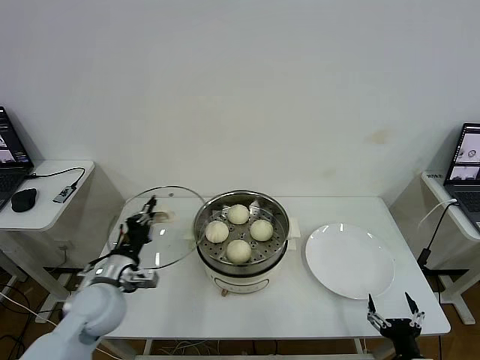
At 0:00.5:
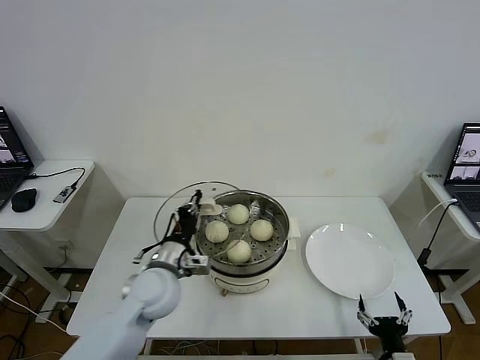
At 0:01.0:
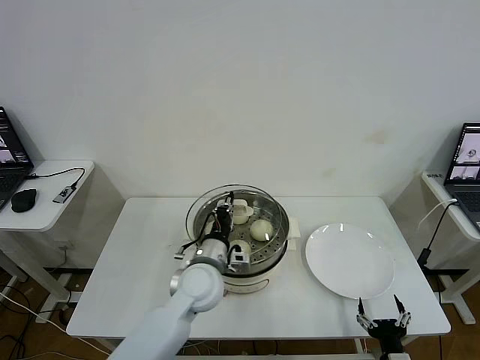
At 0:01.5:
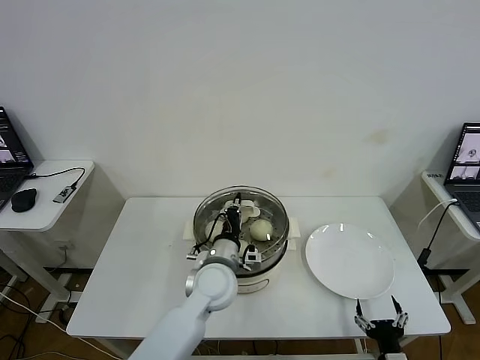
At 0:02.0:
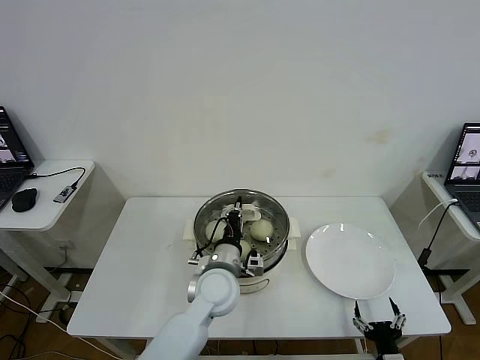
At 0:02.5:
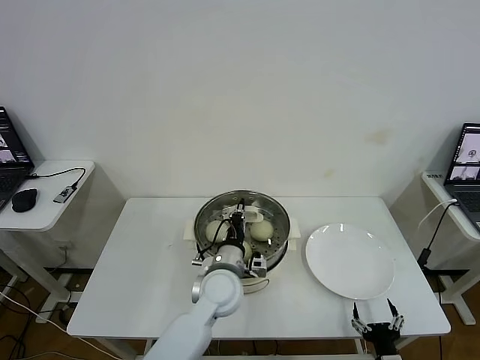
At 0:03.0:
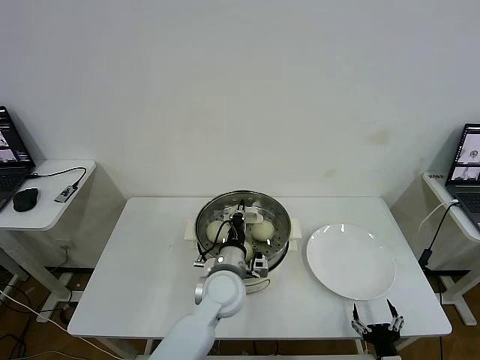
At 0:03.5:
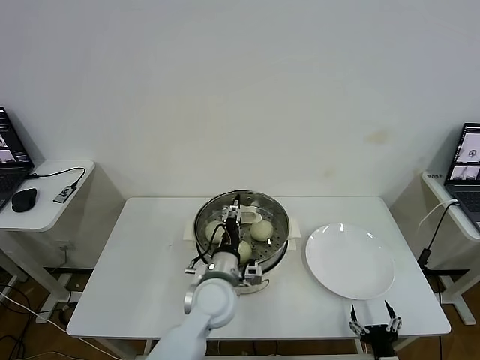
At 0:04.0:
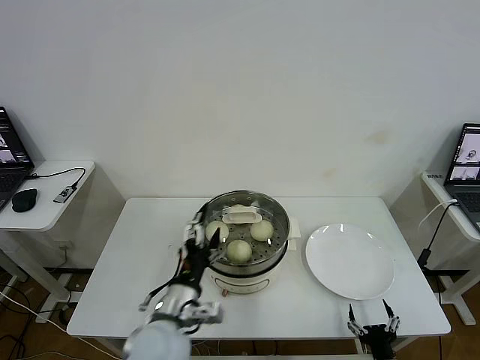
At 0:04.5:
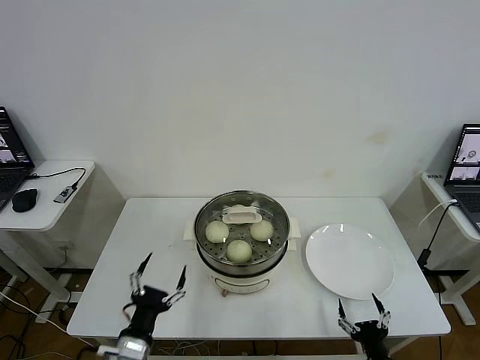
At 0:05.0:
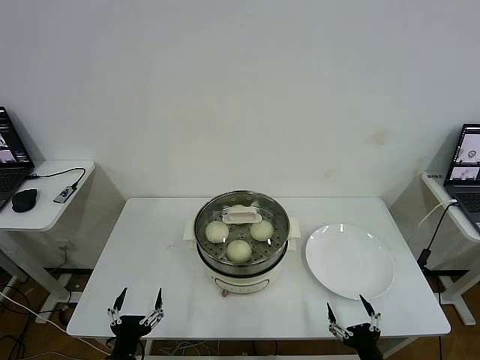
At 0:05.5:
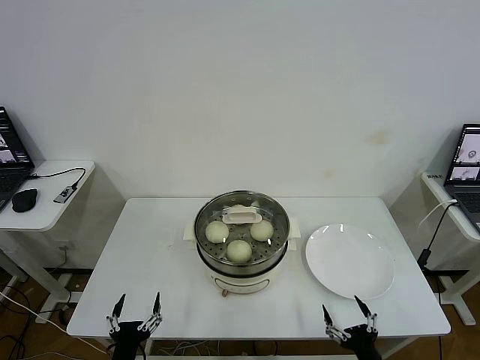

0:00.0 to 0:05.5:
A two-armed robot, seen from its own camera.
Task of the whole recording: take steamed baozi put them in steamer then cover it.
Step, 0:00.0 to 0:03.5: Place the pot lid on the steamer with left gripper.
0:00.0 to 0:02.0: The right gripper moves some 5 cm. The left gripper is displaced to the right by roughly 25 cm.
0:02.0 to 0:03.5: The left gripper opens its fingers.
0:03.5 to 0:05.5: The right gripper shifts by approximately 5 cm. Meanwhile the left gripper shifts roughly 30 cm backward, to the left and downward, and opens its fingers.

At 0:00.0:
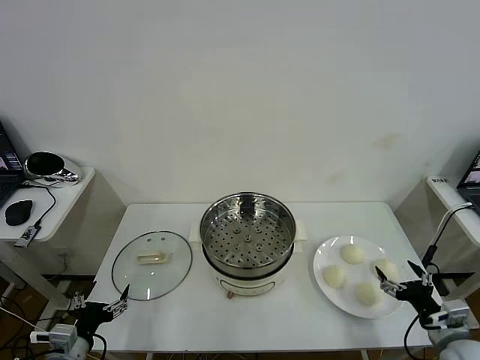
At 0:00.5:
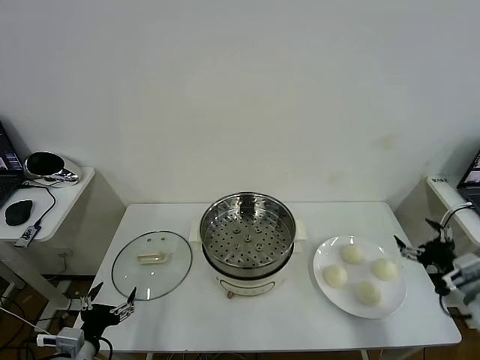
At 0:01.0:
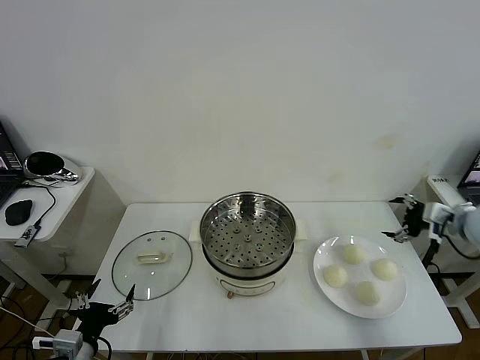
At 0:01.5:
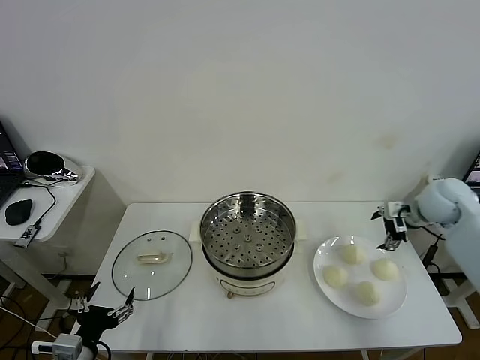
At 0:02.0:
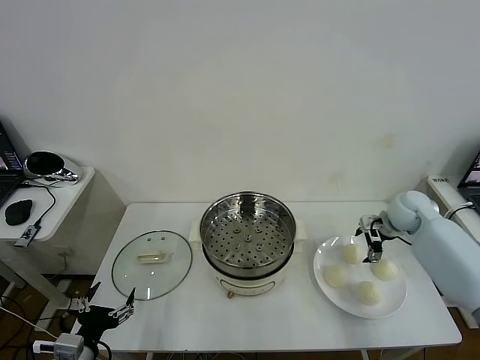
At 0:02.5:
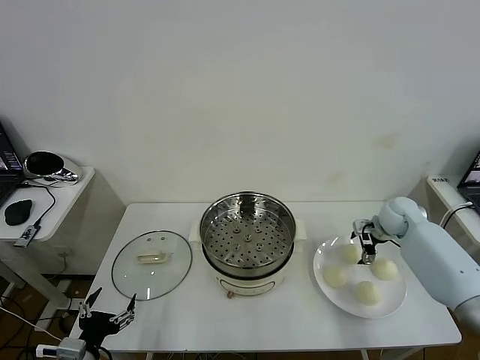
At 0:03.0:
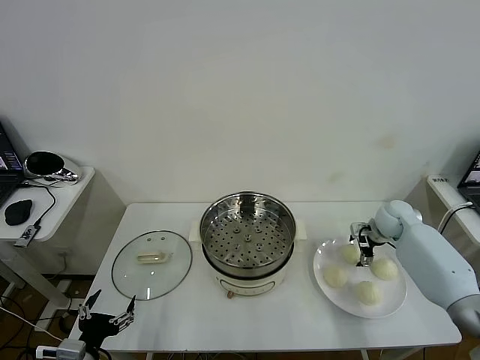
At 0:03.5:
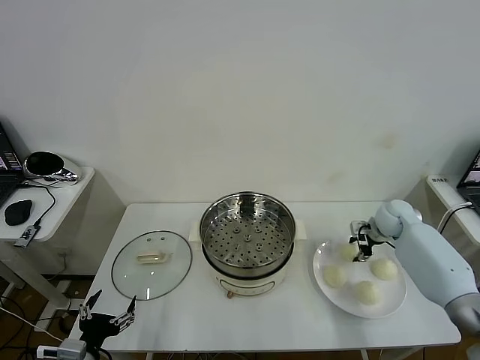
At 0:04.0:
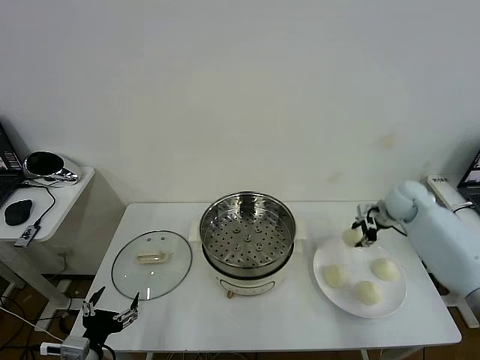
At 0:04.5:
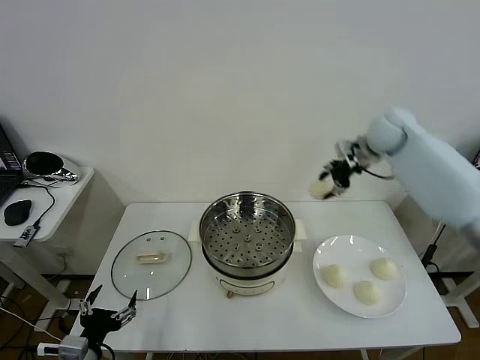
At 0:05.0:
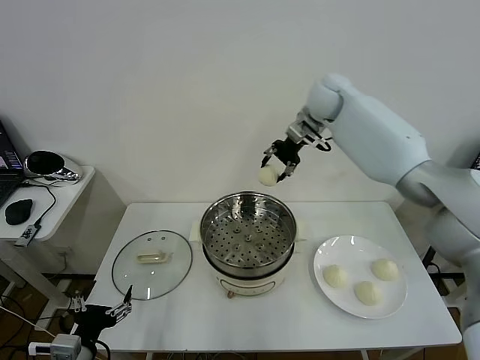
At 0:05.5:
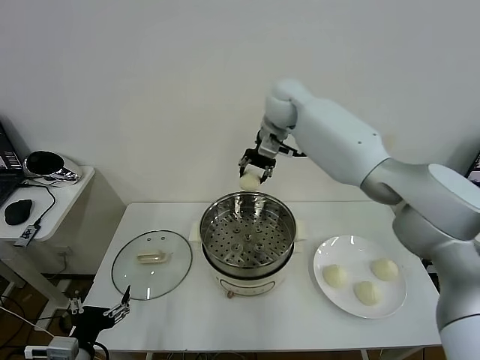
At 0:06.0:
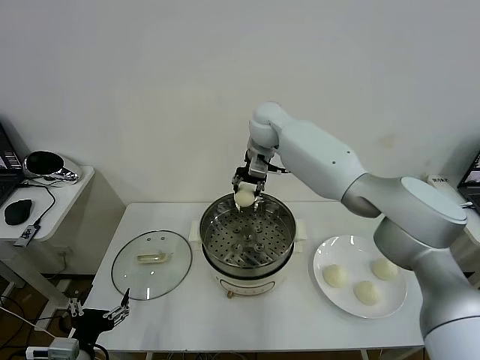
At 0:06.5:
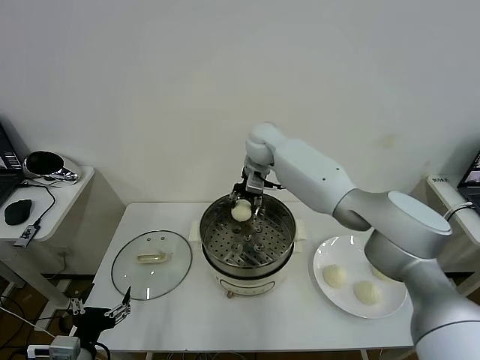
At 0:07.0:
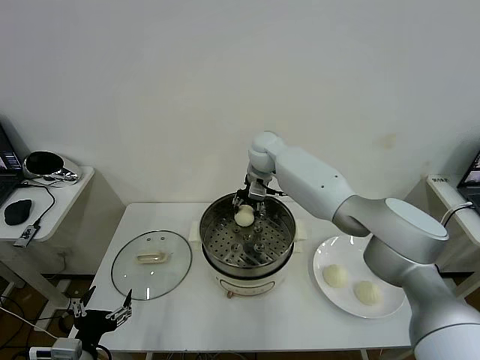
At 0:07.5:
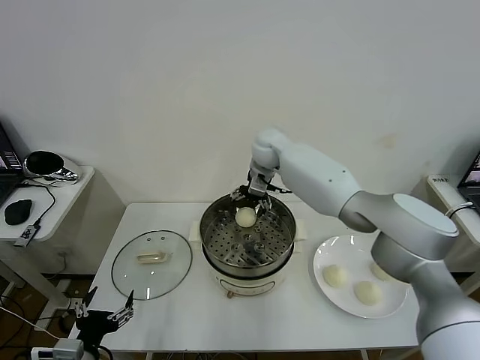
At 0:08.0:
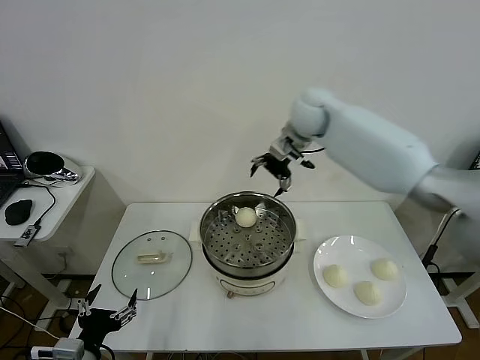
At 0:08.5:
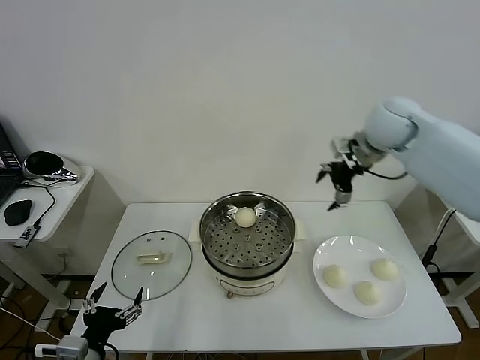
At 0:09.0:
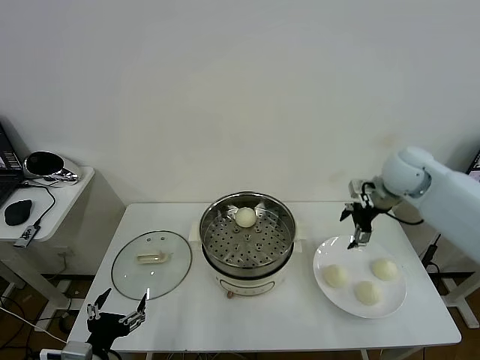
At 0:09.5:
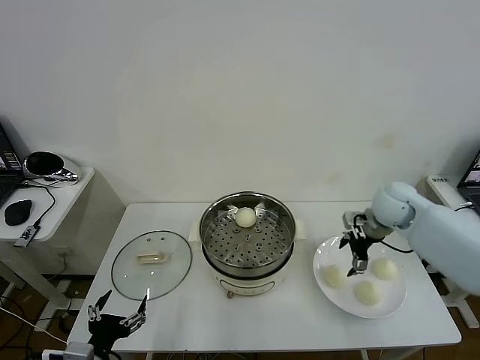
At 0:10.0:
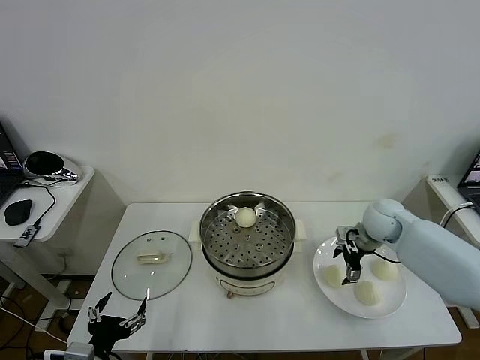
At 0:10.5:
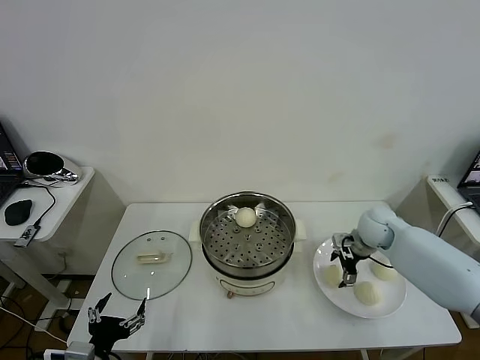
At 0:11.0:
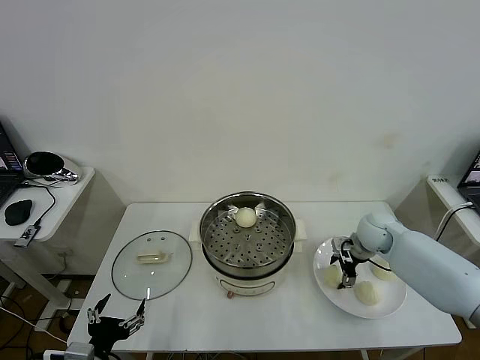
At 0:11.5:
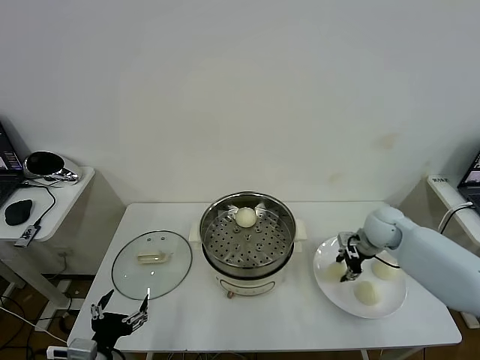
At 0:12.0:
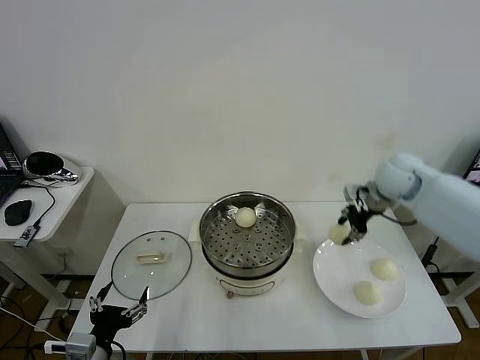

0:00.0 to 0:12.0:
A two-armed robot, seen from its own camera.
Task of the whole recording: take steamed baozi put them in steamer then cover it.
Step, 0:00.0 to 0:03.5: Grasp the baozi in the plate with right gripper.
Step, 0:04.0 to 0:07.5: Place the baozi on the steamer with right gripper.
Step, 0:08.0 to 0:11.0: Grasp the baozi in the plate with right gripper.
0:02.0 to 0:04.0: The right gripper is displaced upward by about 5 cm, and closes its fingers.
0:04.0 to 0:06.0: The right gripper travels to the left by approximately 35 cm.
0:06.0 to 0:08.0: The right gripper is displaced to the right and upward by about 15 cm, and opens its fingers.
0:08.0 to 0:10.0: The right gripper is displaced downward, to the right and backward by about 30 cm.
0:10.0 to 0:12.0: The right gripper travels upward by roughly 15 cm, and closes up.

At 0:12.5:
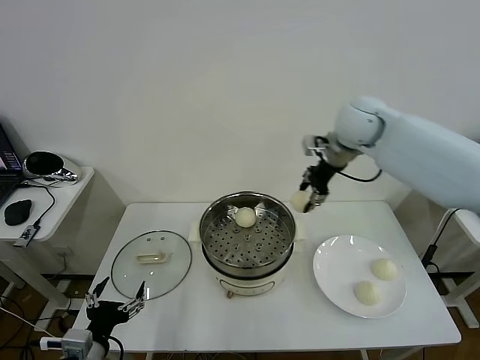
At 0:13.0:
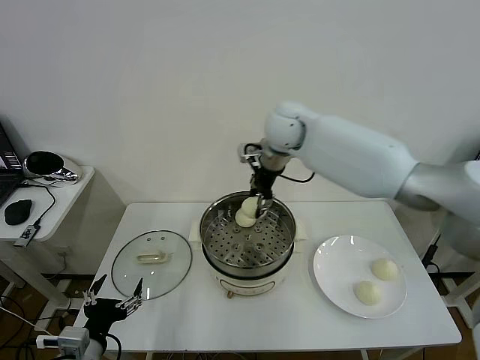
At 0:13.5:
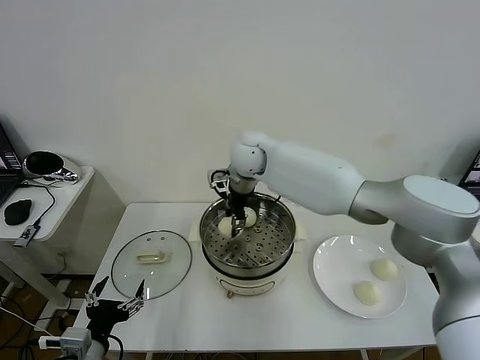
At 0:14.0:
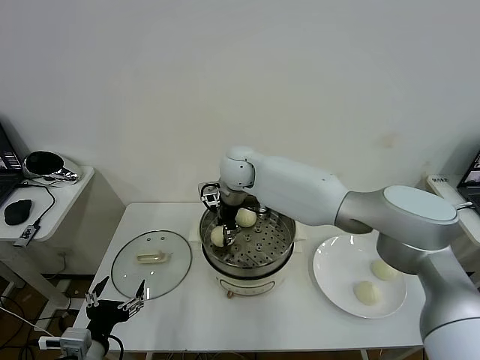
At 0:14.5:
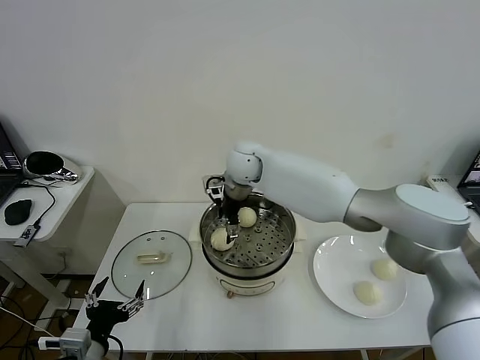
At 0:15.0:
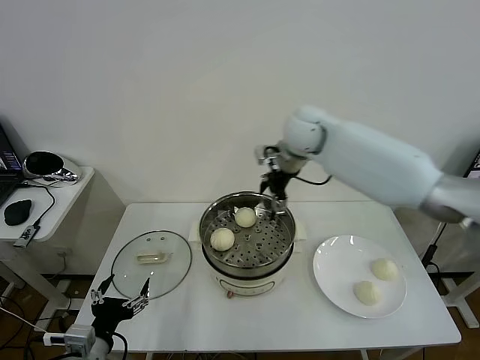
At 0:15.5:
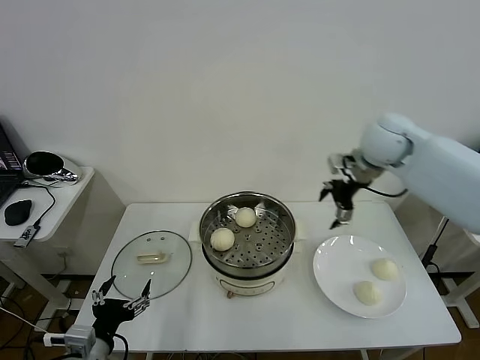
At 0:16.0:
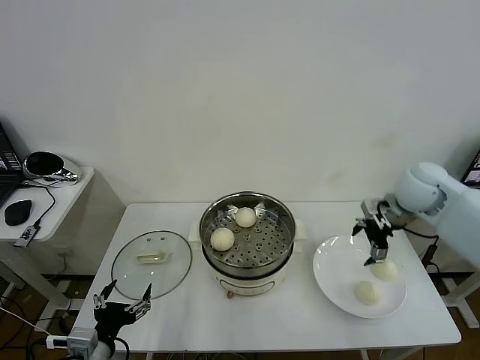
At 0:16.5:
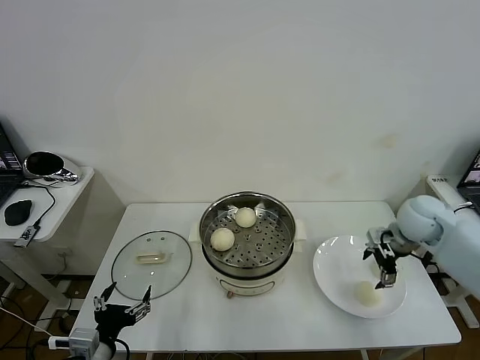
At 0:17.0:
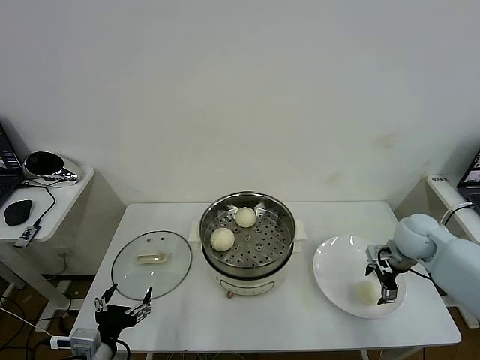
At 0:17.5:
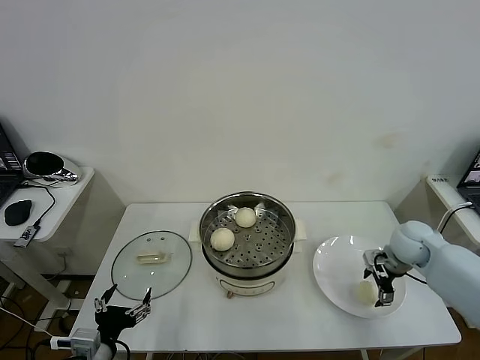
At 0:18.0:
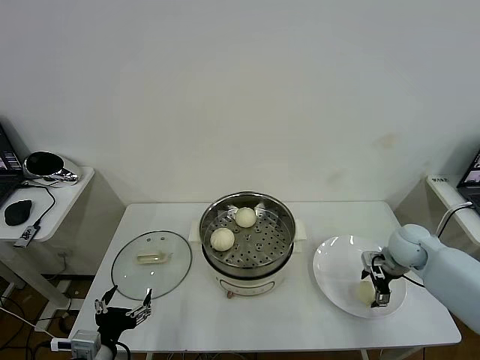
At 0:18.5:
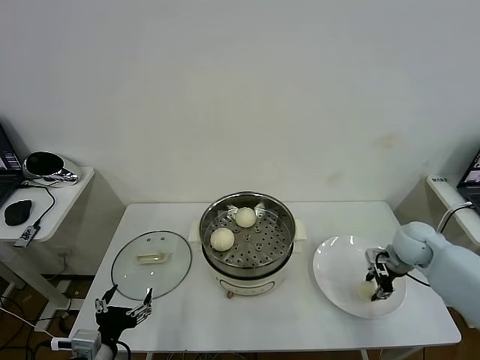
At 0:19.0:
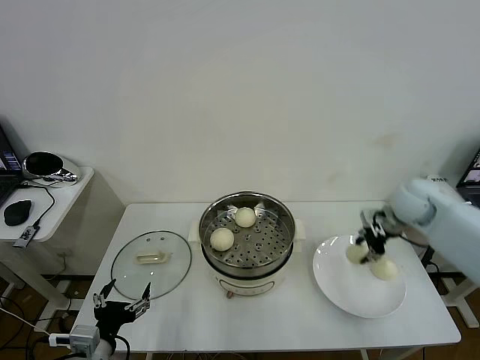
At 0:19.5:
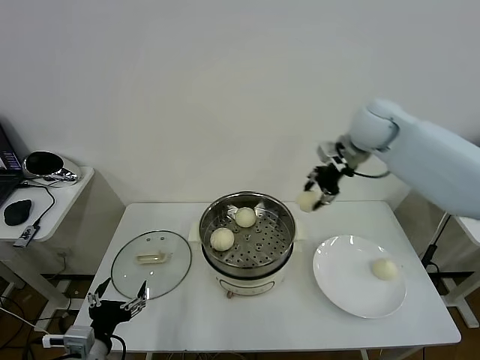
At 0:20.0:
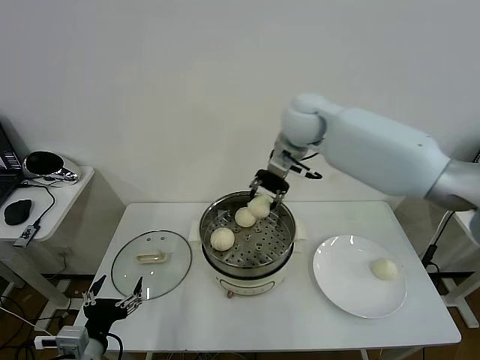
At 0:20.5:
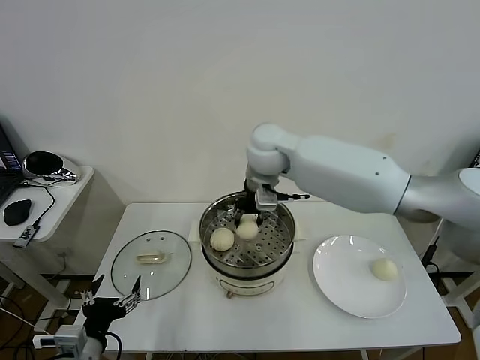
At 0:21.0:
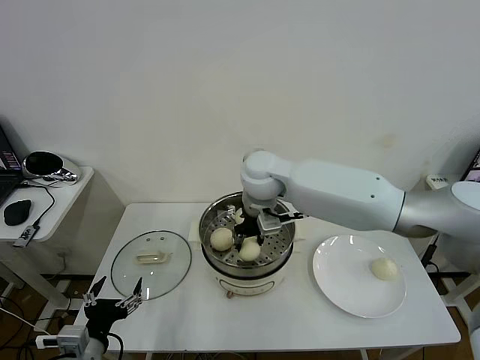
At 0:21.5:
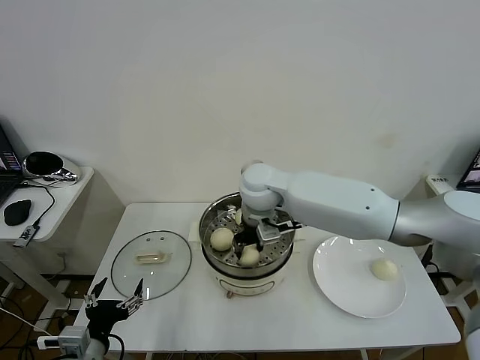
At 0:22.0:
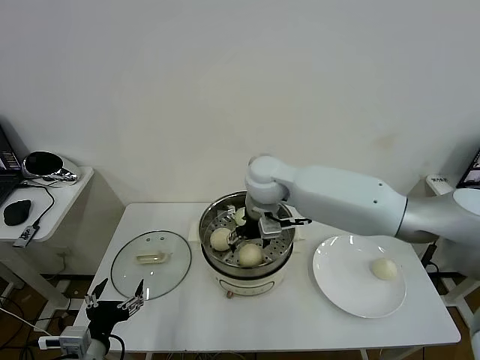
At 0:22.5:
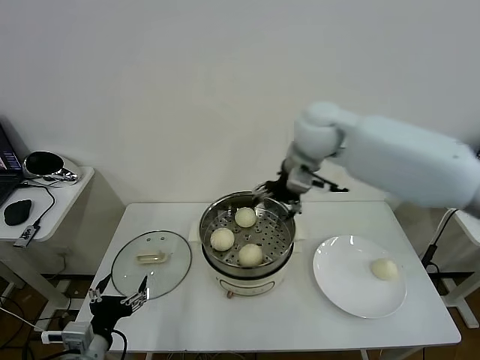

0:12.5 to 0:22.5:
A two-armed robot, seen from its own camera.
Task of the whole recording: take steamed baozi put them in steamer then cover it.
Step, 0:12.5 to 0:14.5: Place the baozi on the steamer with right gripper.
Step, 0:15.0 to 0:18.5: Grasp the baozi in the plate with right gripper.
Step, 0:19.0 to 0:22.0: Place the baozi on the steamer with right gripper.
0:12.5 to 0:14.5: The right gripper heads to the left and downward, covering approximately 20 cm, and opens.
0:14.5 to 0:16.5: The right gripper goes approximately 35 cm to the right.
0:16.5 to 0:18.5: The right gripper shifts approximately 5 cm downward, and closes up.
0:18.5 to 0:20.5: The right gripper shifts some 40 cm to the left and upward.
0:20.5 to 0:22.5: The right gripper heads to the right and upward, covering some 15 cm, and opens up.
